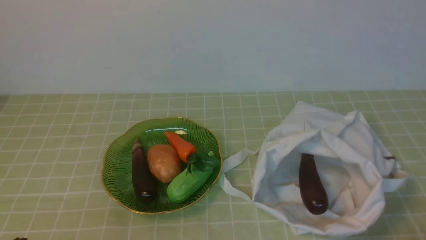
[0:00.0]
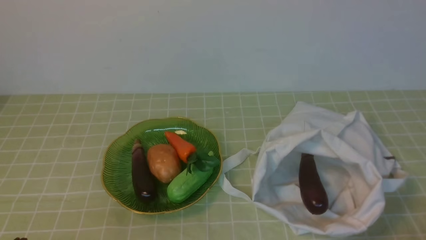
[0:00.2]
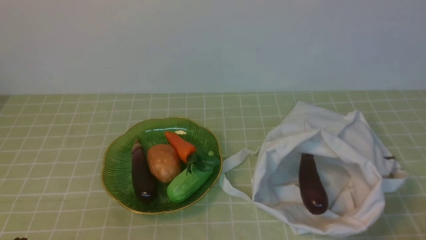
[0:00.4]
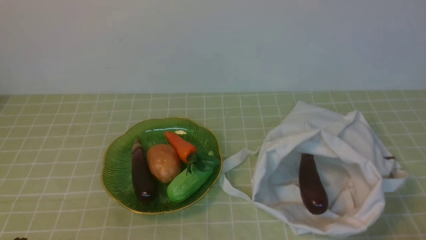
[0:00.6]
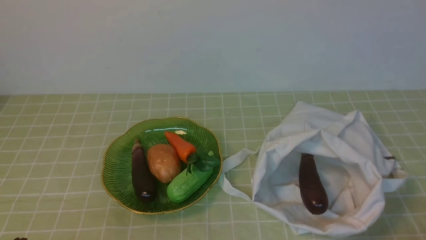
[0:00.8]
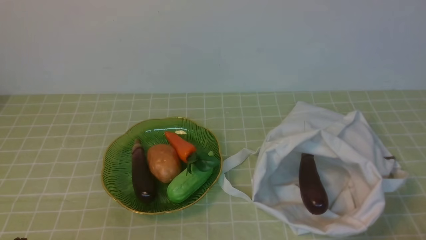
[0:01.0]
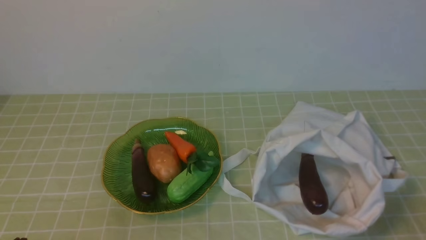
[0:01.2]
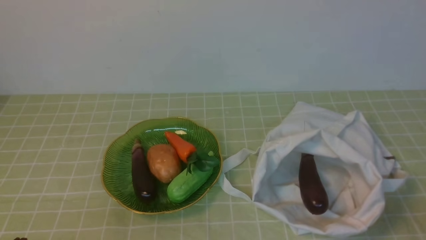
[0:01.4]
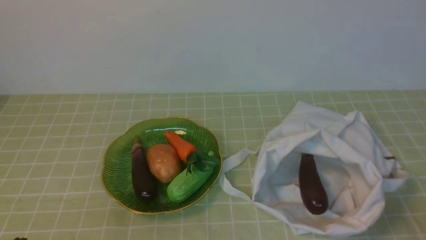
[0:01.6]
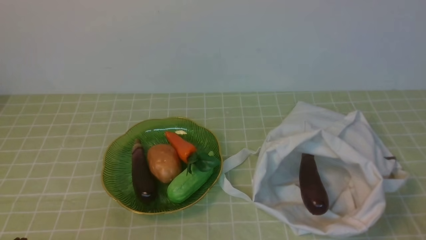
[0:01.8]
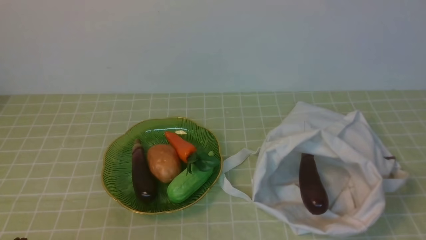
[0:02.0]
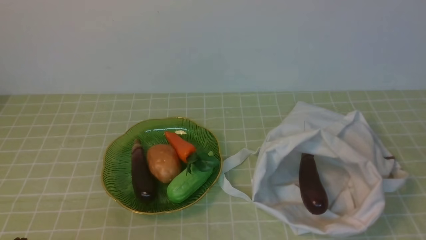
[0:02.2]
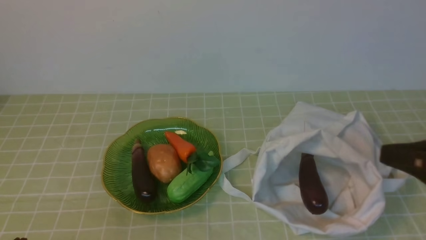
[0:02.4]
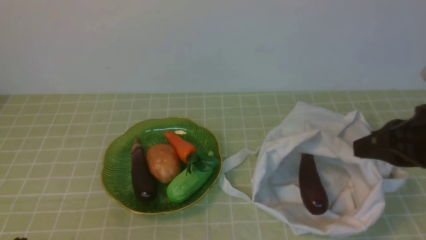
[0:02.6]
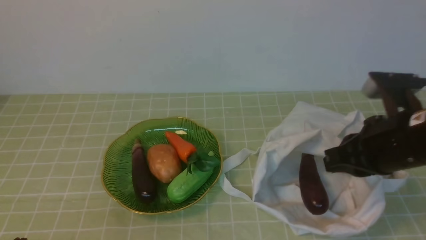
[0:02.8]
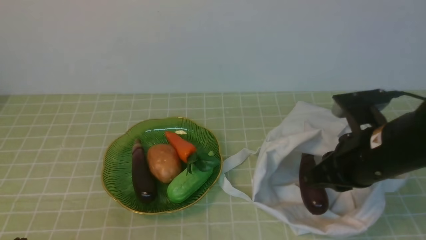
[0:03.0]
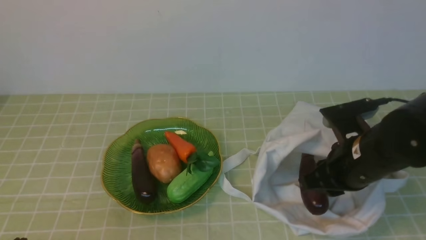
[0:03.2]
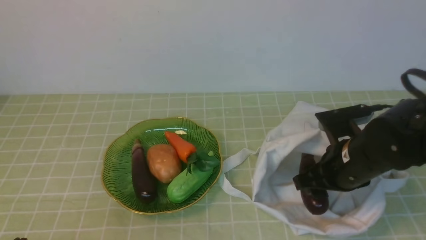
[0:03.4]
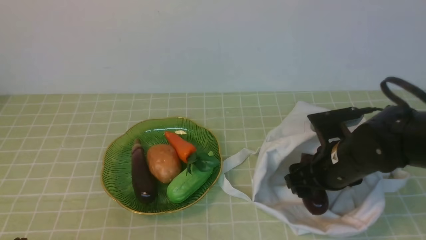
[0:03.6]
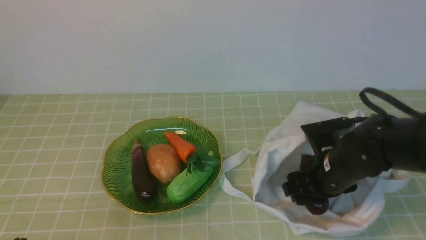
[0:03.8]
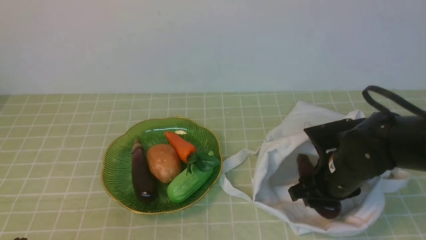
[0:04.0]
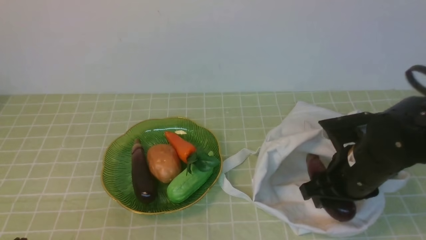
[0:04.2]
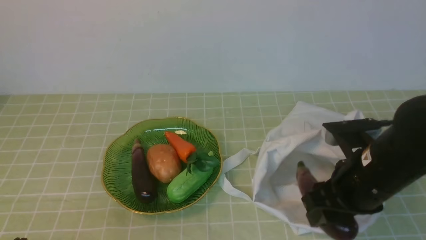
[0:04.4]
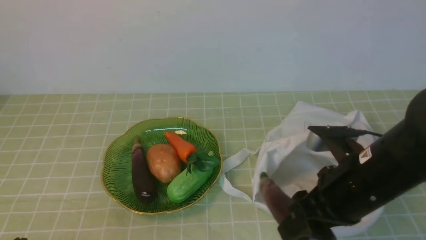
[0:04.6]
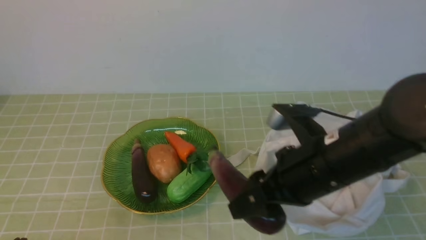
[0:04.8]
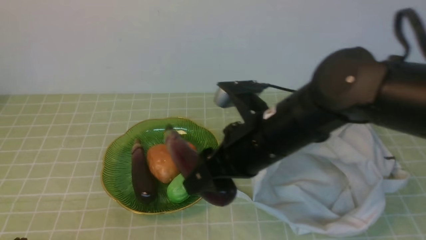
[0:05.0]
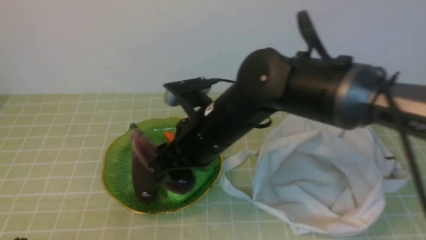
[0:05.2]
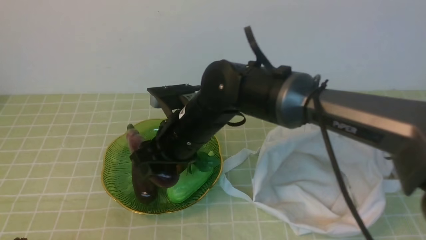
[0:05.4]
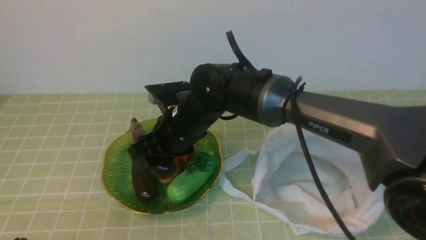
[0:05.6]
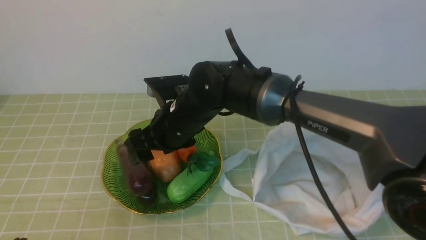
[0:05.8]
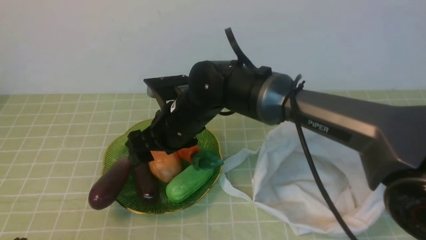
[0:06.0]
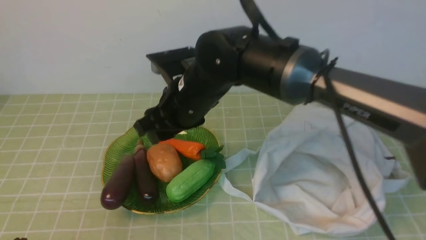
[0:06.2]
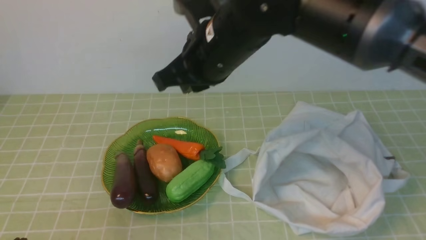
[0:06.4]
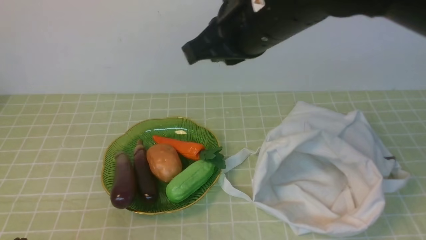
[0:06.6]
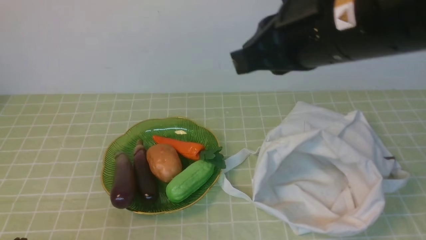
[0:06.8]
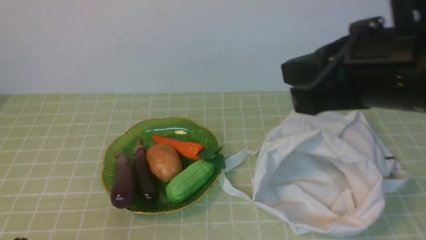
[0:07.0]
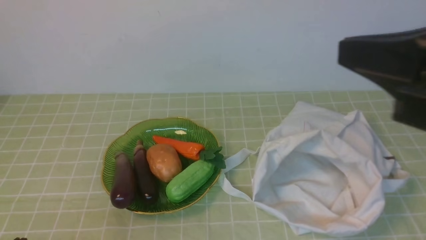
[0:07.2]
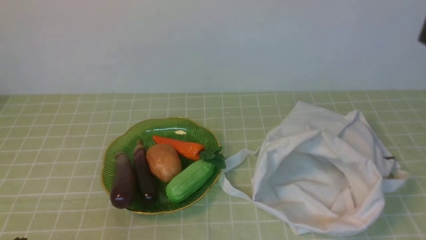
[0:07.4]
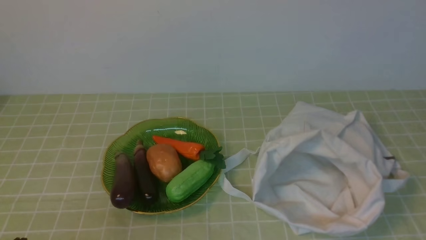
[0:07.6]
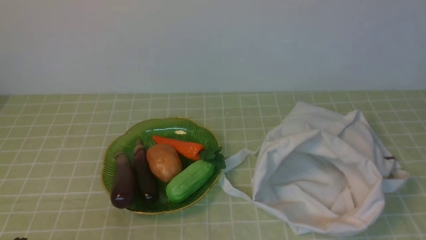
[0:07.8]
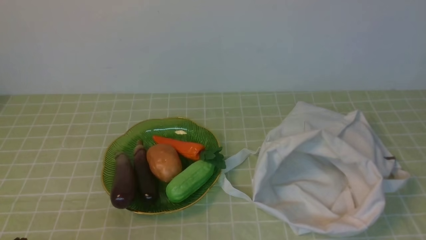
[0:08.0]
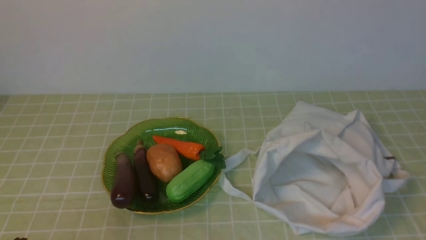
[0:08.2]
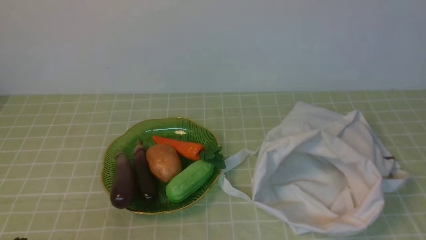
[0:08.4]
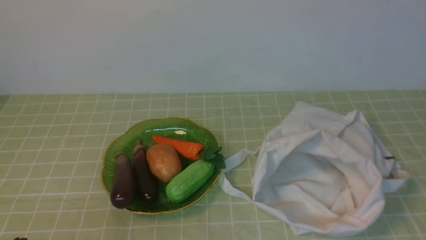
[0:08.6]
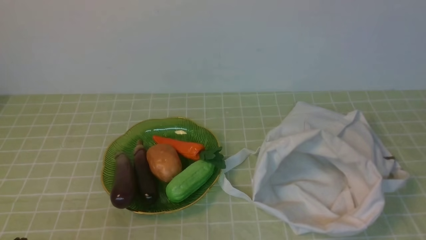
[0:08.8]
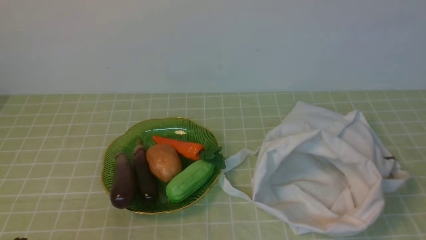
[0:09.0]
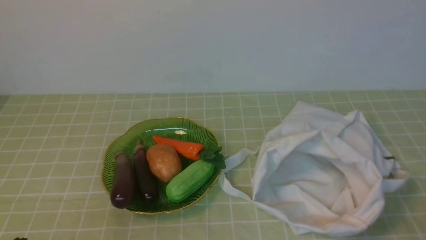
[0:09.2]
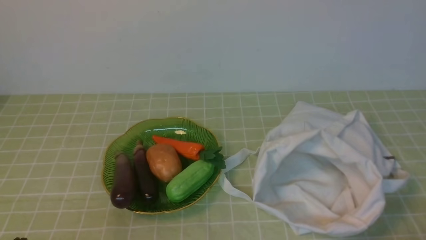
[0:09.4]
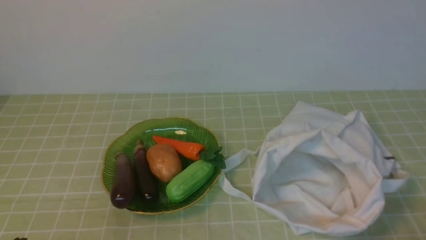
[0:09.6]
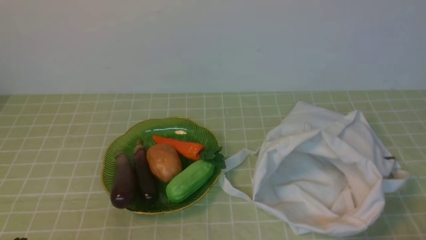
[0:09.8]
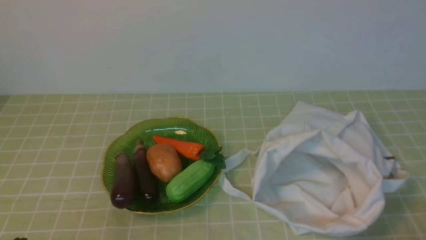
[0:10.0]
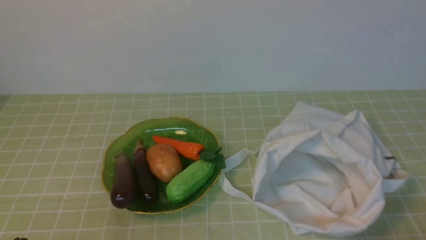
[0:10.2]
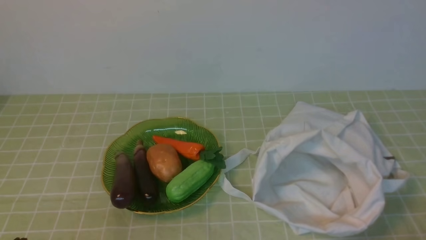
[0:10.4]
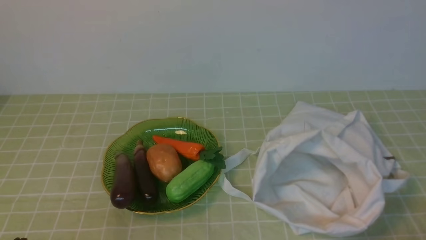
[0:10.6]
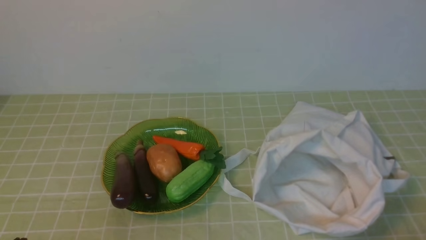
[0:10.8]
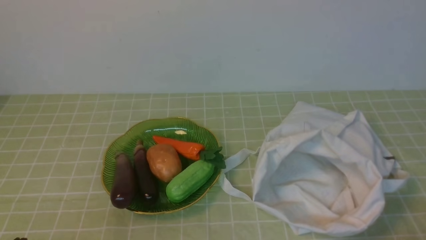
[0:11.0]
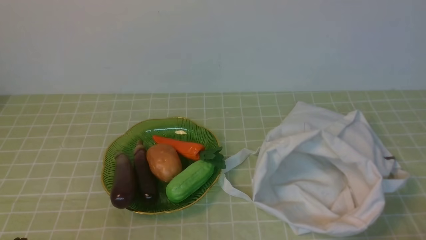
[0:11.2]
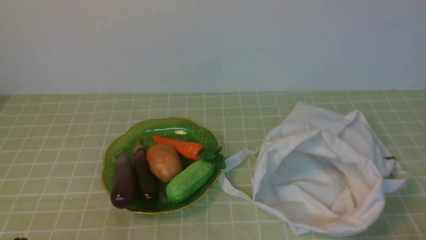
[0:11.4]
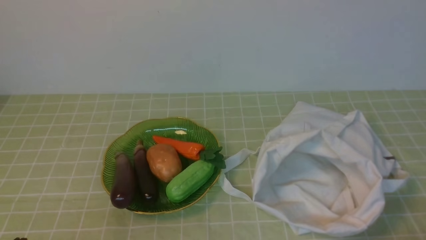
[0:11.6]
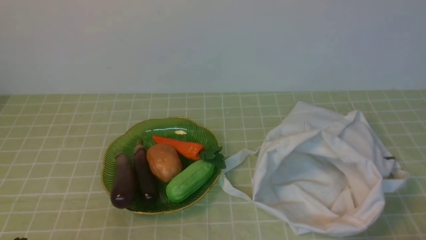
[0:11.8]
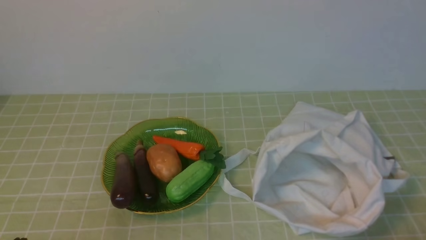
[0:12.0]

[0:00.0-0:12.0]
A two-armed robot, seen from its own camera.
Task of the whole recording: take vegetables from bag on green coffee tablecloth place on plate.
Step, 0:00.0 to 0:03.8: Grasp the eggplant with right gripper.
Step, 0:04.0 to 0:05.8: Place the eggplant on the plate with right gripper.
0:01.6 to 0:03.0: The right gripper moves forward and to the left, roughly 20 cm.
0:03.0 to 0:04.4: The right gripper travels downward and back again, approximately 10 cm each way, and opens up.
0:04.4 to 0:06.0: The right gripper travels to the left and forward by approximately 25 cm.
0:06.0 to 0:07.6: The right gripper shifts roughly 40 cm to the right, backward and upward, and closes up.
0:10.4 to 0:12.0: Both grippers stay about where they are.

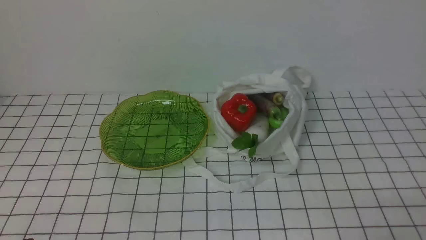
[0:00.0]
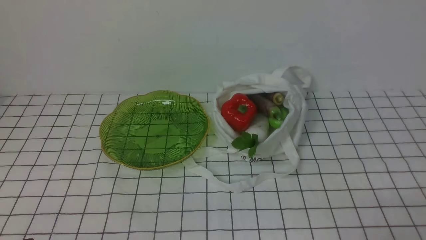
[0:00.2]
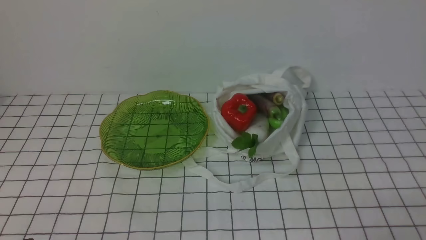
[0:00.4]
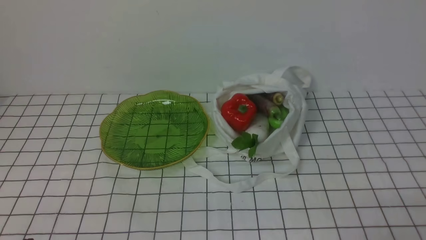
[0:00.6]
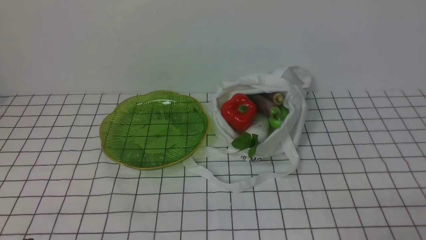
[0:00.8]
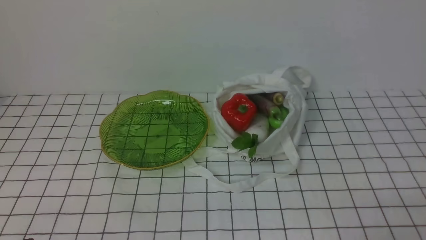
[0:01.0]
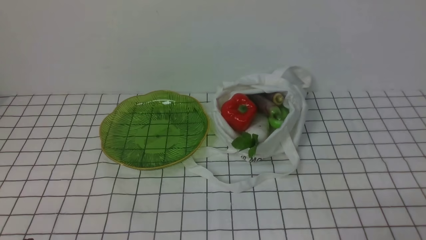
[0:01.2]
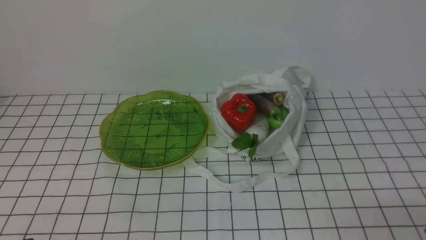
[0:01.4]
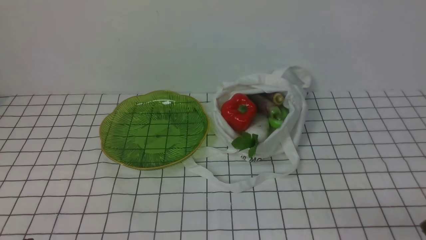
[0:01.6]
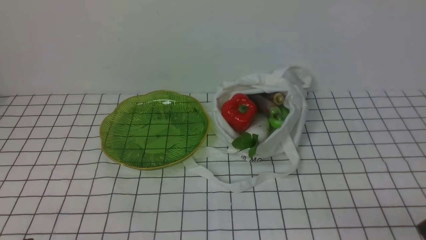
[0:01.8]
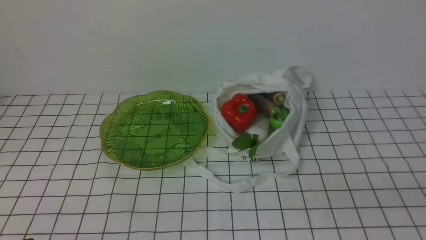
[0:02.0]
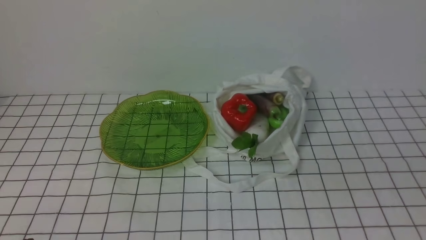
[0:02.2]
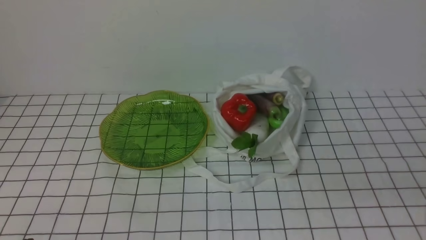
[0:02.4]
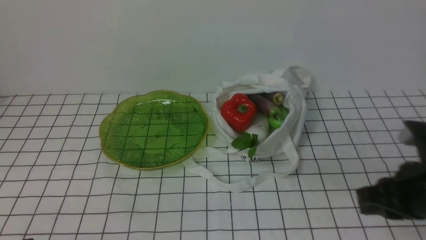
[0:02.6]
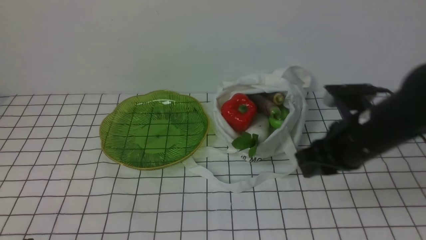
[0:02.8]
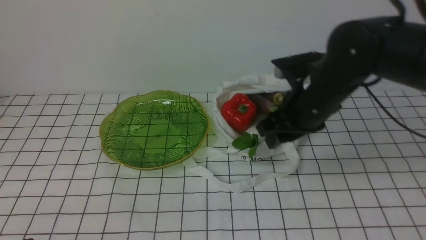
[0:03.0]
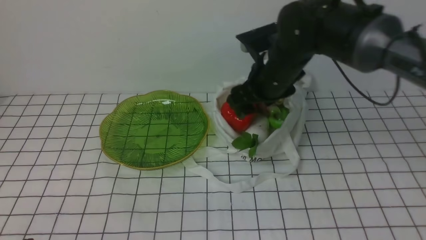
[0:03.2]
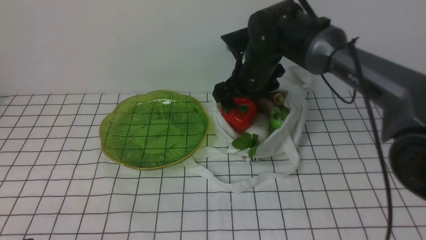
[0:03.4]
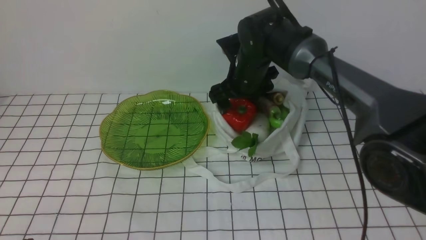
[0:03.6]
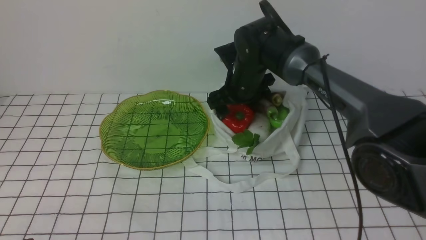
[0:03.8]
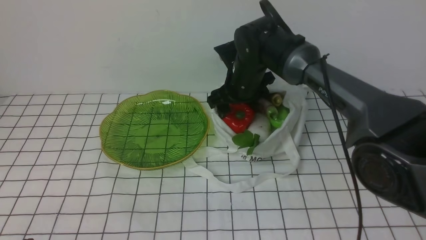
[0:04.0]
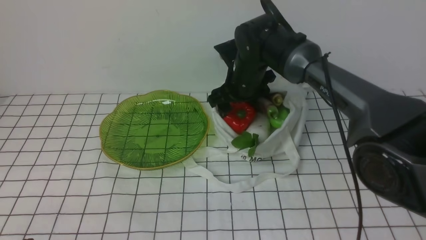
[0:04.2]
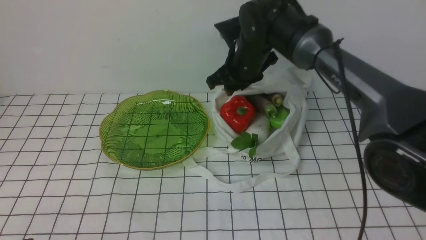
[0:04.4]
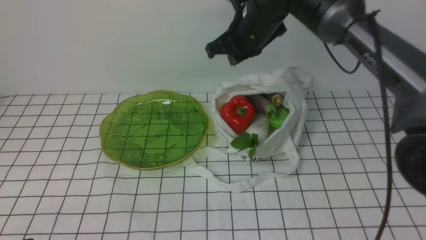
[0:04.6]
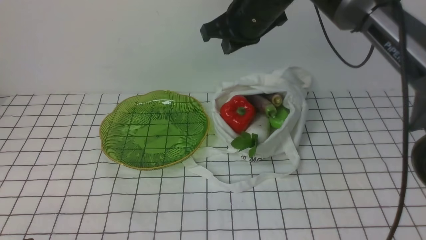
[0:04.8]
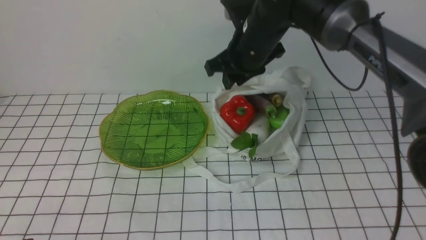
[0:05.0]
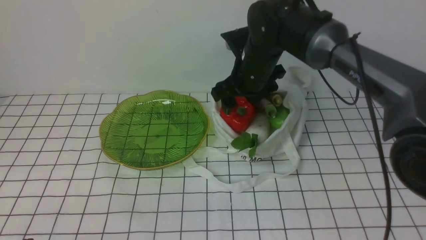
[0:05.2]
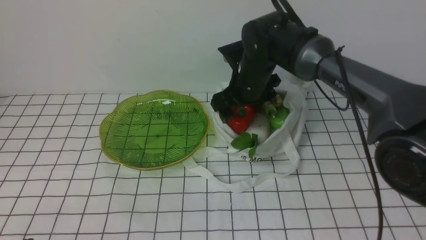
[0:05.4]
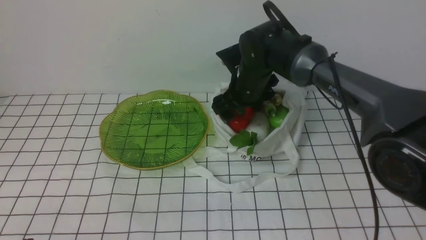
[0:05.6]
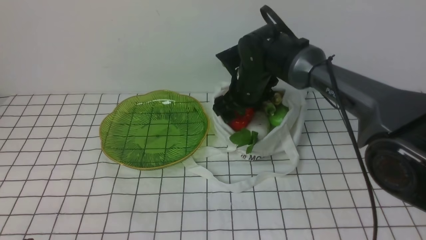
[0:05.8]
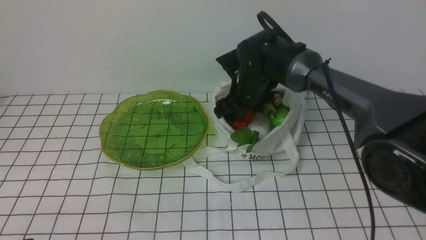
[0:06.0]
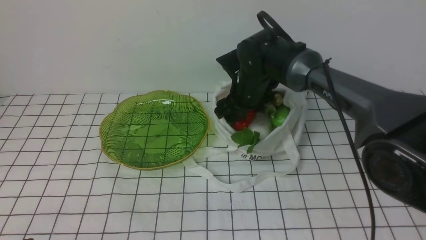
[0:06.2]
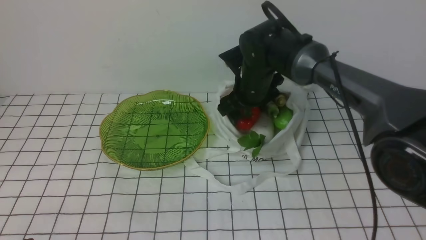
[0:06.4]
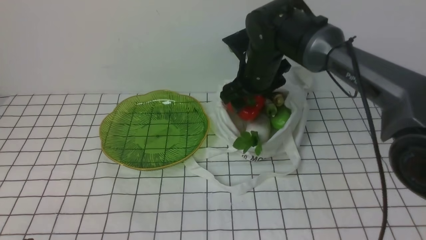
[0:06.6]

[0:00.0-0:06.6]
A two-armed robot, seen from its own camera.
Task of the whole recording: take vegetables from bag on white checkered tablecloth place on plate.
Step, 0:00.0 to 0:06.2: Grasp the bell pepper with right gripper.
0:01.6 to 0:03.2: The right gripper goes about 40 cm forward and to the left, and opens.
0:03.2 to 0:05.0: The right gripper goes upward and returns, about 5 cm each way, and closes up.
0:05.0 to 0:06.6: The right gripper opens its fingers.
